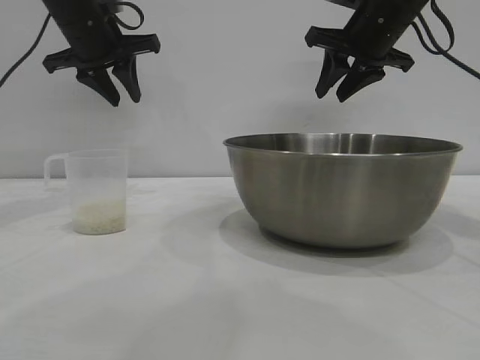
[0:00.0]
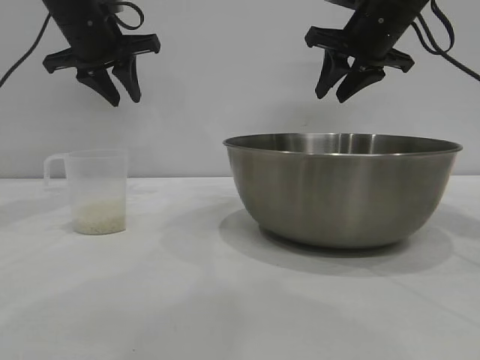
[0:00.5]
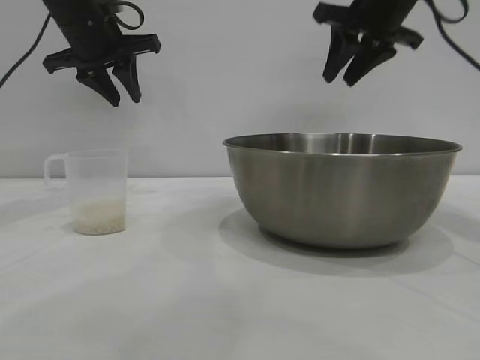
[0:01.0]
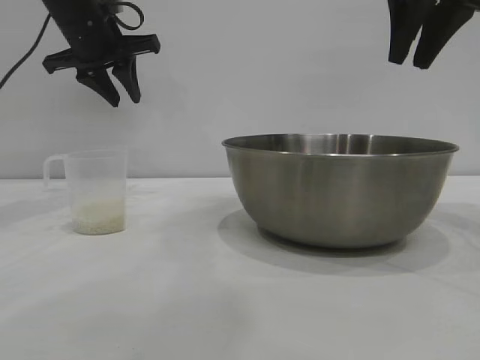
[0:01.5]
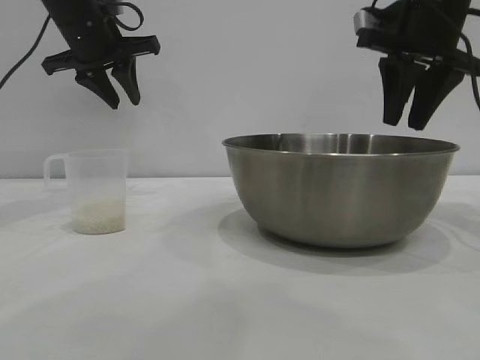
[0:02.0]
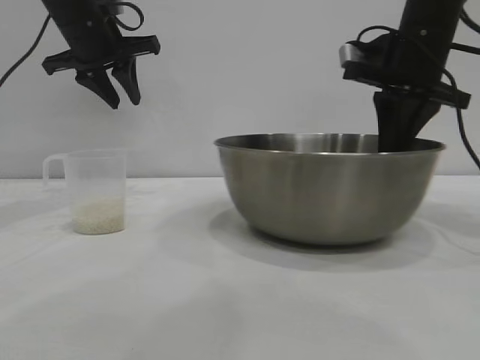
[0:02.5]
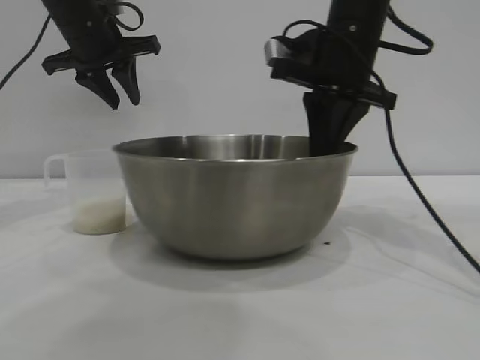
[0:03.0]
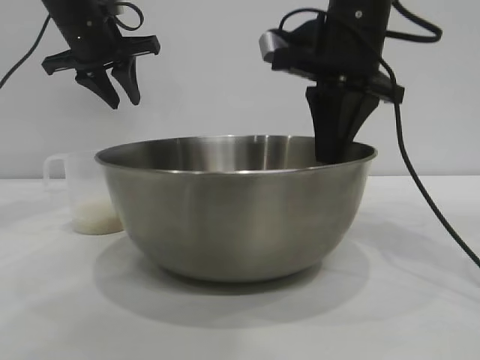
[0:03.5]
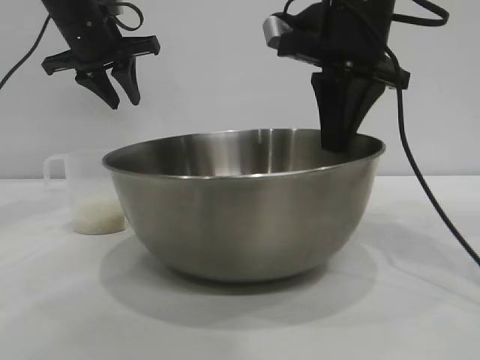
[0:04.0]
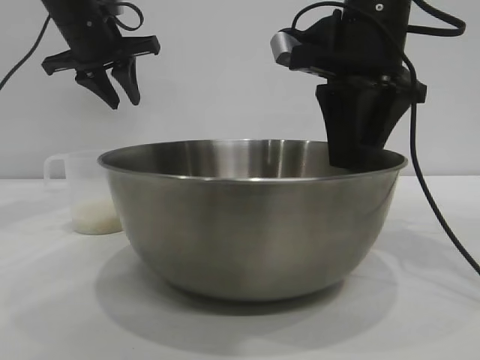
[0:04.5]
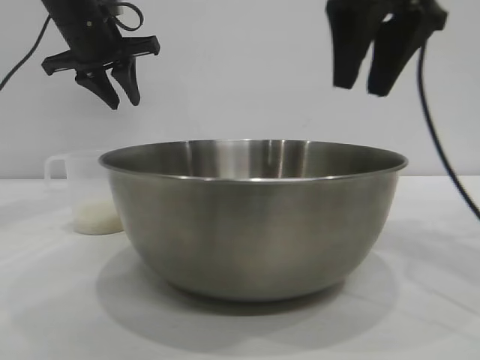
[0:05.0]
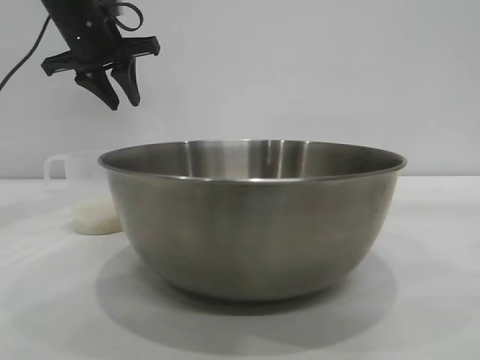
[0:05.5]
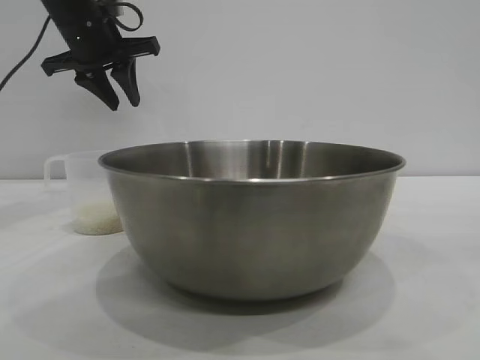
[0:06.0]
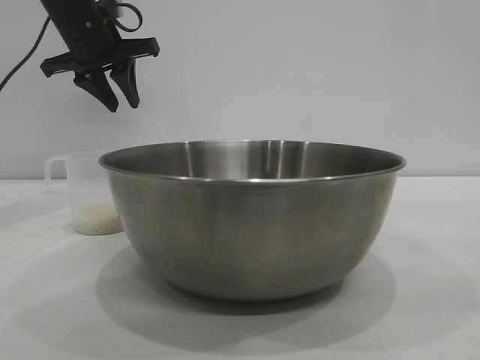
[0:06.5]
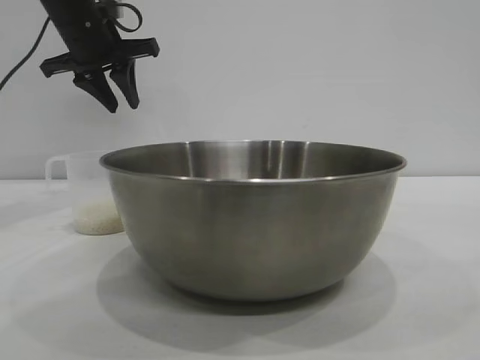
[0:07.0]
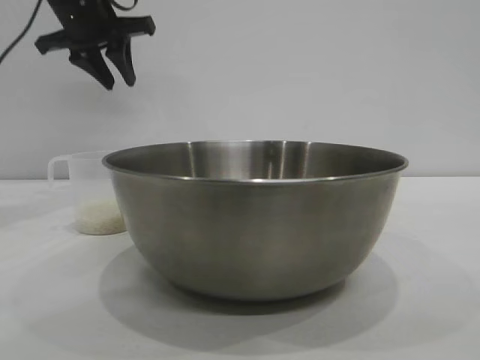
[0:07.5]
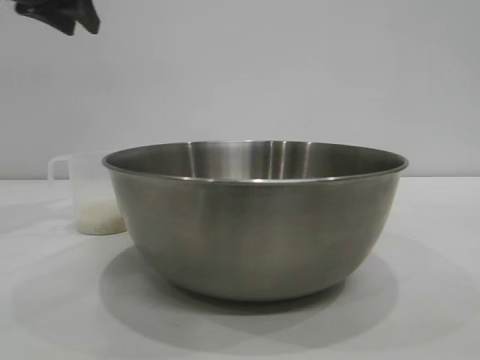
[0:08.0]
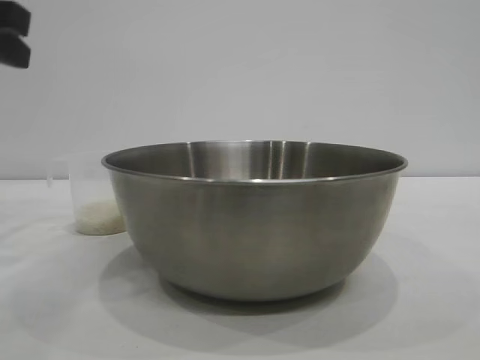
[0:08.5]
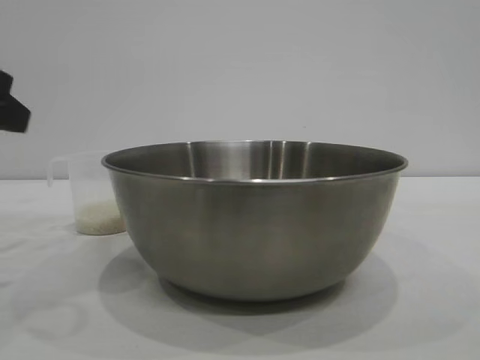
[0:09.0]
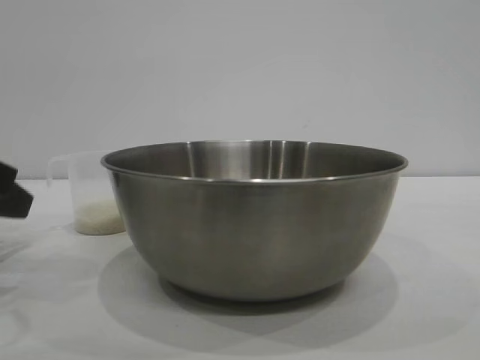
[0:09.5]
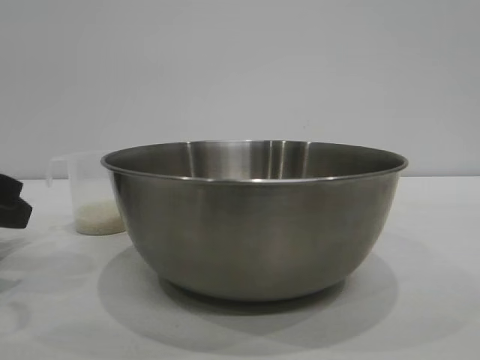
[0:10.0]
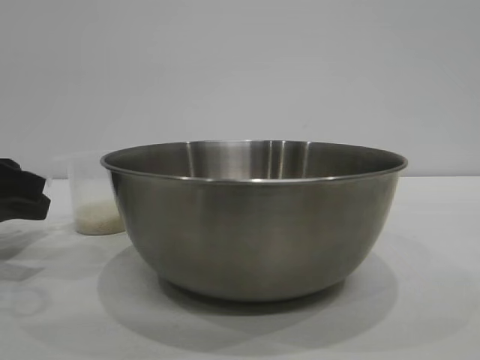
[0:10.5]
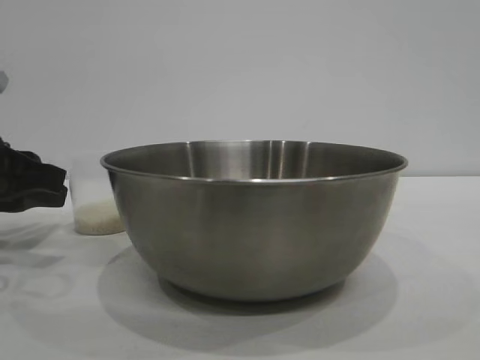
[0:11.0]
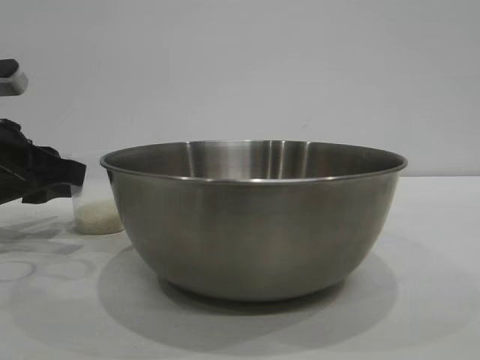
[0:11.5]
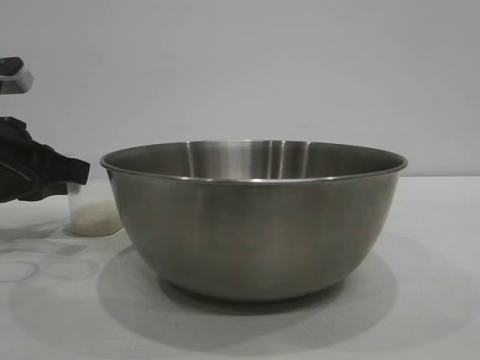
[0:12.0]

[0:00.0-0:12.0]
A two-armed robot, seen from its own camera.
Task of the whole recording: the right gripper grasp the rice container and place it in the center of the table, the left gripper grasp the rice scoop and pour the rice into the rice container.
Step, 0.0 to 4.5 s: Move the bowl to the center of view with the right gripper.

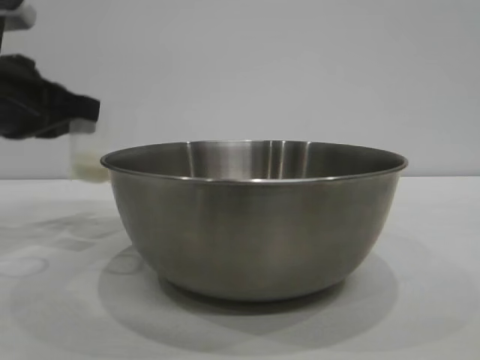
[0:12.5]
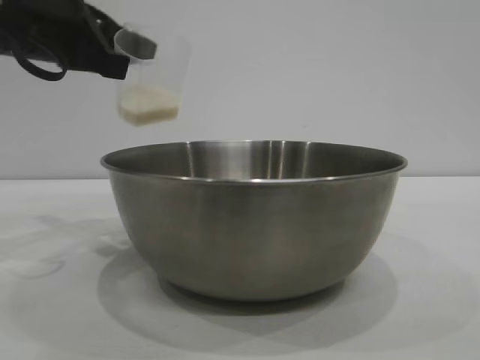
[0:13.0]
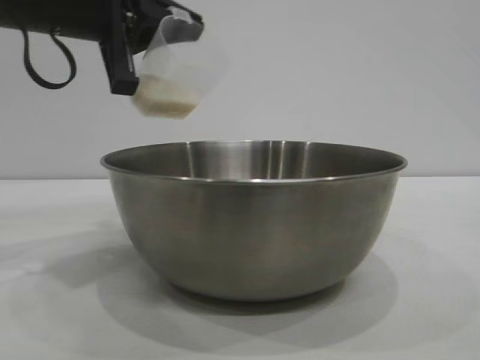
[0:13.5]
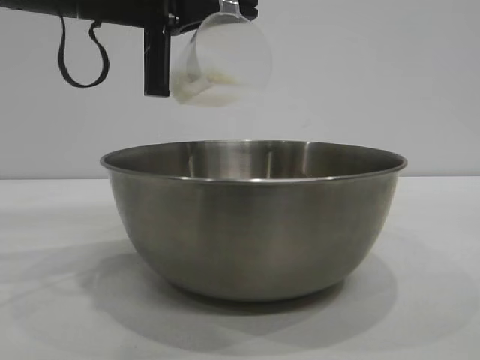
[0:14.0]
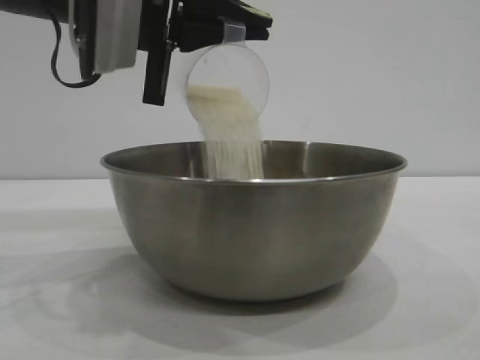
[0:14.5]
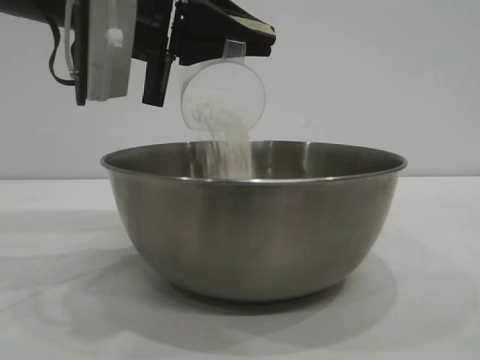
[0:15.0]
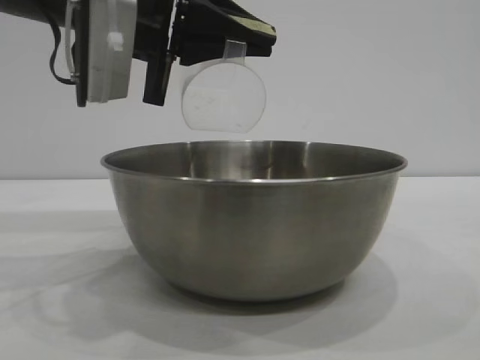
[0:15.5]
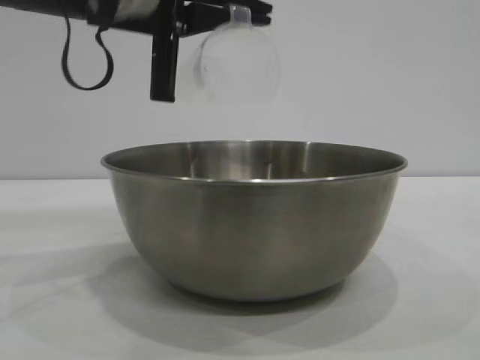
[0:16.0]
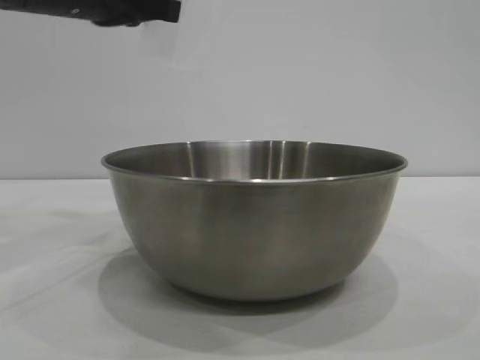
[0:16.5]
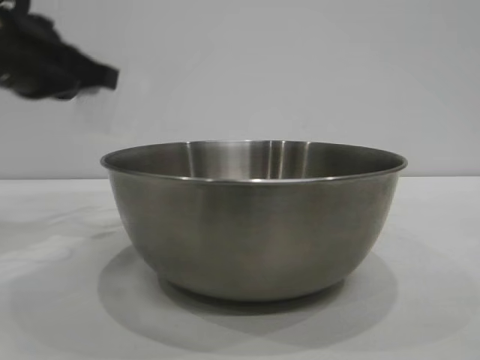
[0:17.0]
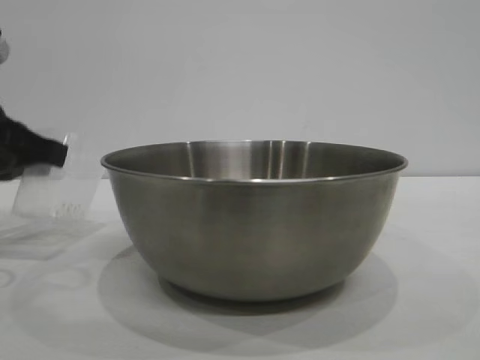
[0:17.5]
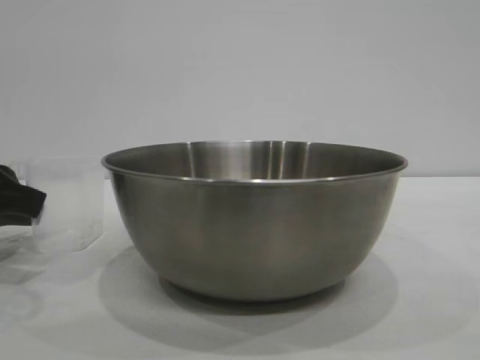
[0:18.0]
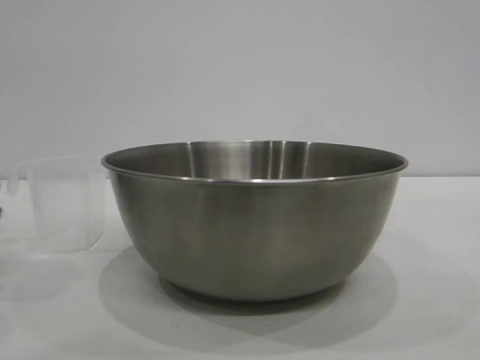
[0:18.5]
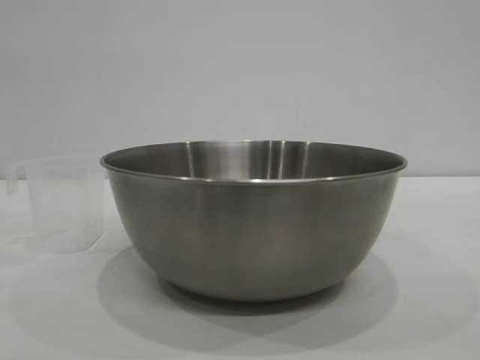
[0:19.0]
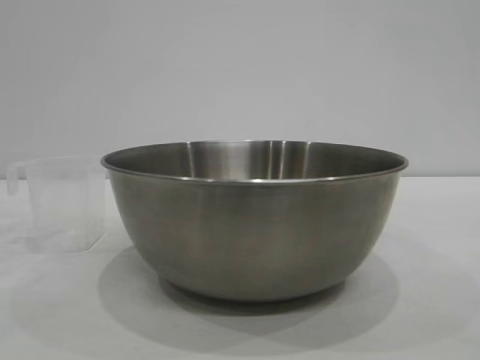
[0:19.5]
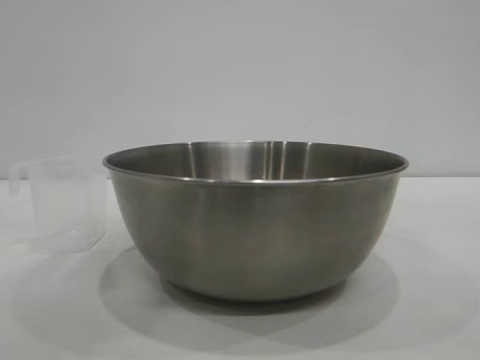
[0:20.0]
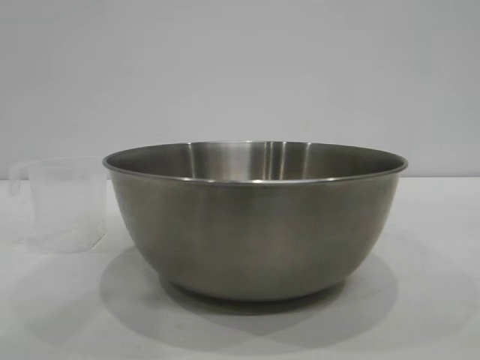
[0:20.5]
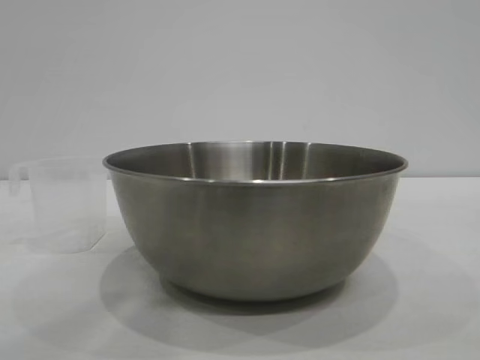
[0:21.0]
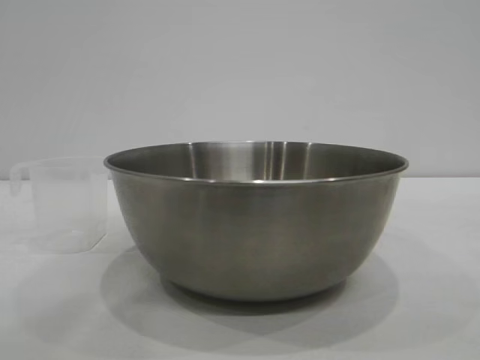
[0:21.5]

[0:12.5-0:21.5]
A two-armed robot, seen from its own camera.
Task of the whole recording: the right gripper grasp the rice container and place it in the center of the table, the left gripper grasp the rice scoop and pour the rice into the rice container.
Step, 13.0 to 15.5 s: Pour the rice from the cup into the bowl with the left gripper.
Step, 16.0 to 18.5 s: Place the cup on the table with the left gripper.

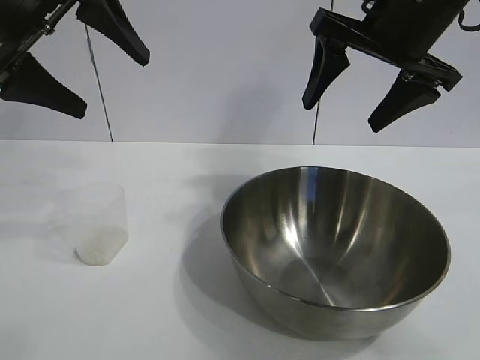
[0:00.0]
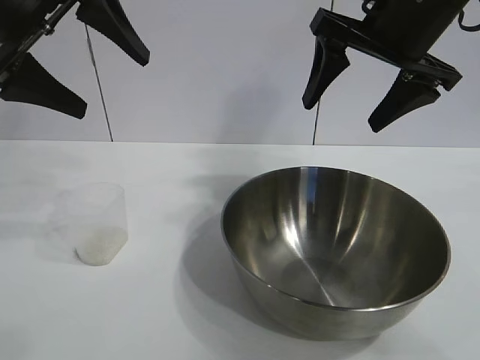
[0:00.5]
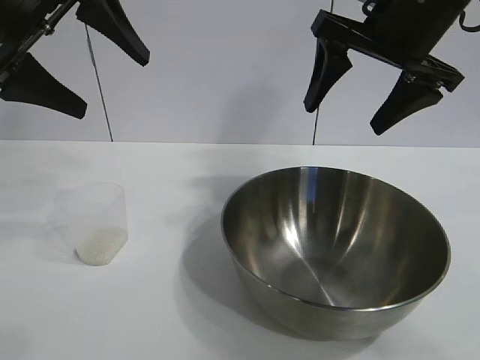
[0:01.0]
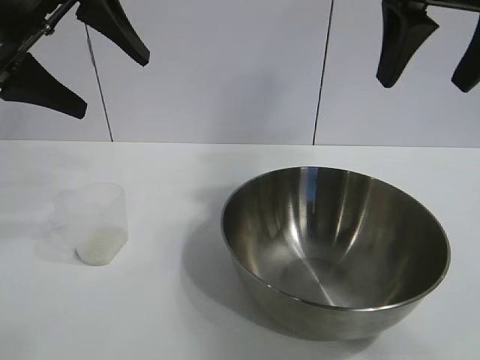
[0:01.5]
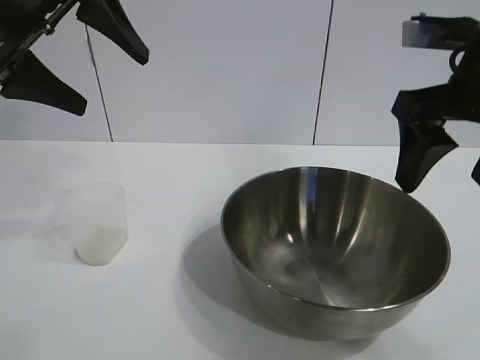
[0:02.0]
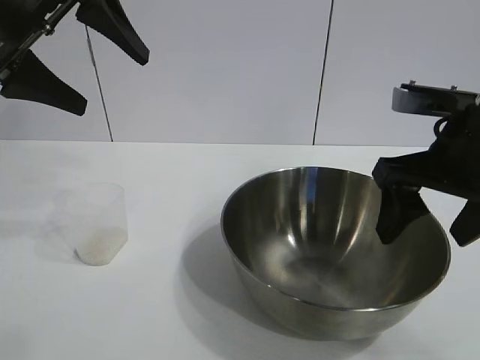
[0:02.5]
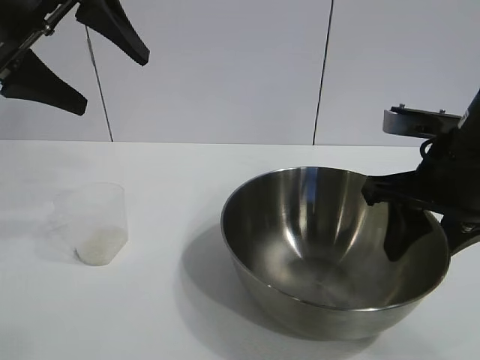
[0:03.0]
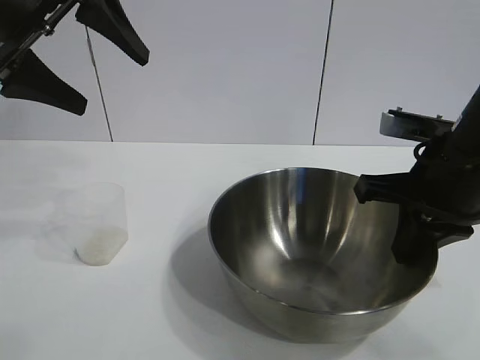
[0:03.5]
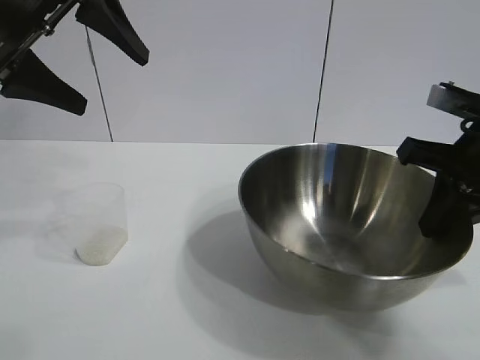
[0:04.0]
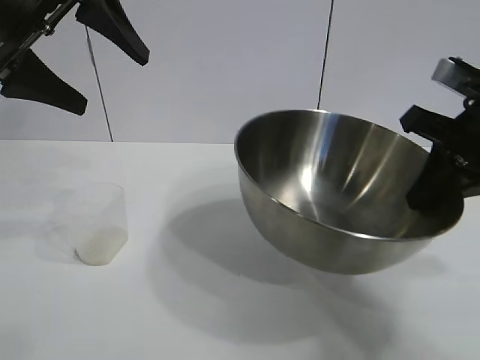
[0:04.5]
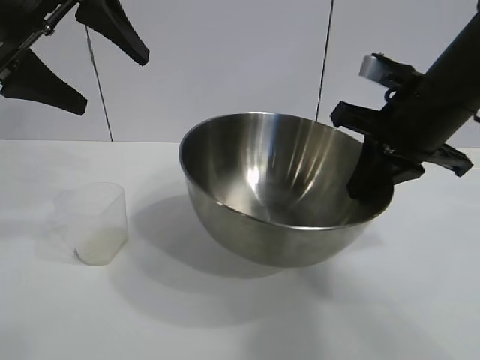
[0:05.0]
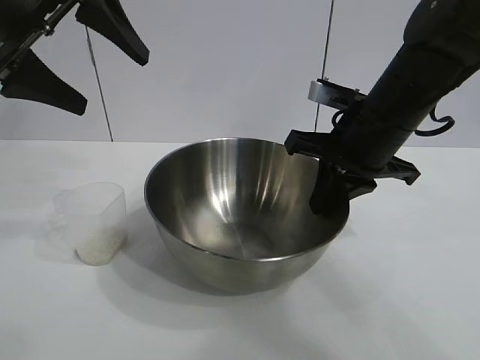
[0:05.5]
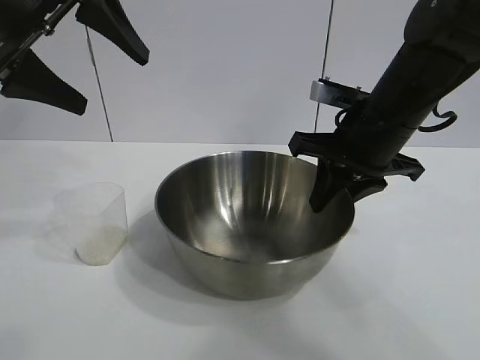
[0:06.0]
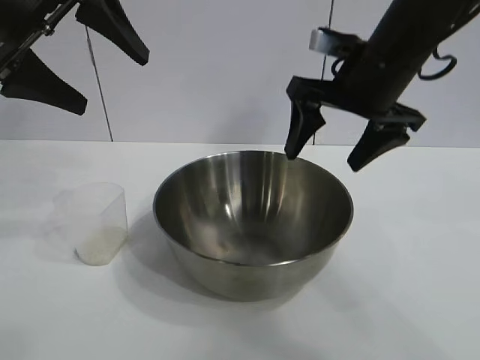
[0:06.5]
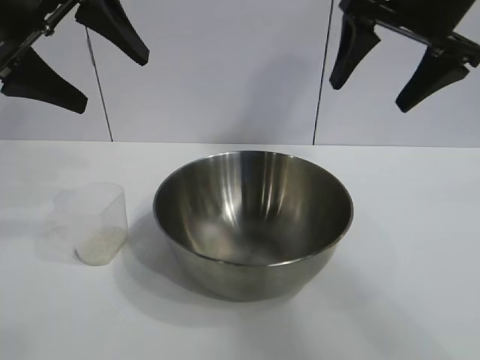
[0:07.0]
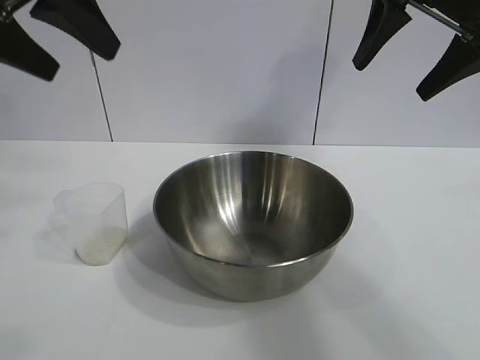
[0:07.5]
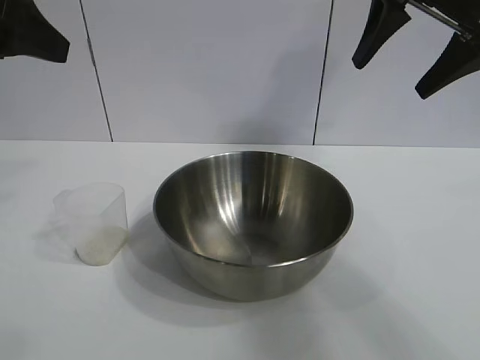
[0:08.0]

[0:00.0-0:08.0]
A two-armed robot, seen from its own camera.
Task of the whole recording: the right gripper grasp the rice container and place it in the center of the table, the left gripper grasp the rice scoop and pour the rice into the rice container.
Step, 1.0 to 6.0 s: Move the bowl in the center of view with right gripper.
